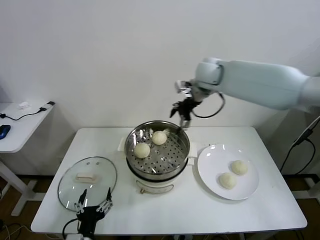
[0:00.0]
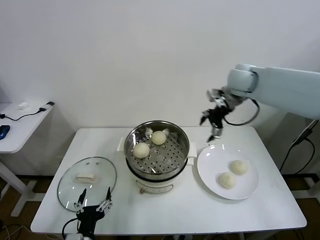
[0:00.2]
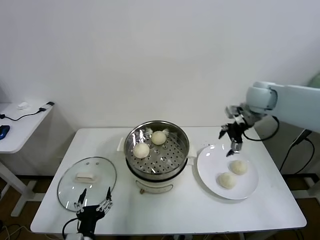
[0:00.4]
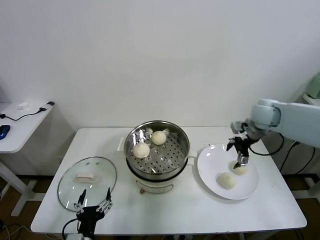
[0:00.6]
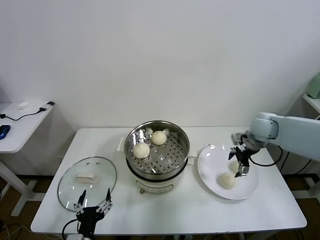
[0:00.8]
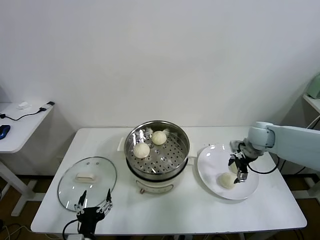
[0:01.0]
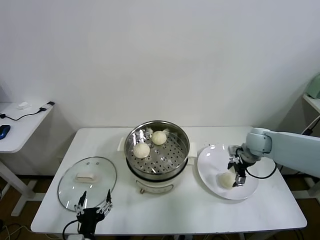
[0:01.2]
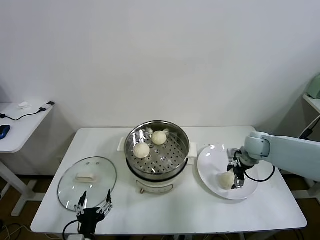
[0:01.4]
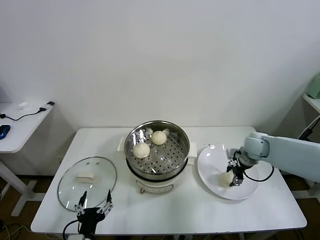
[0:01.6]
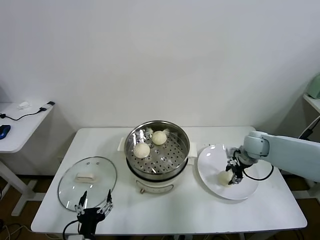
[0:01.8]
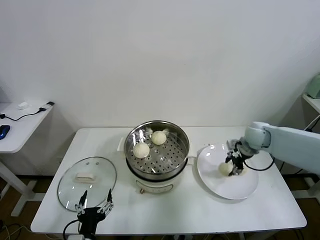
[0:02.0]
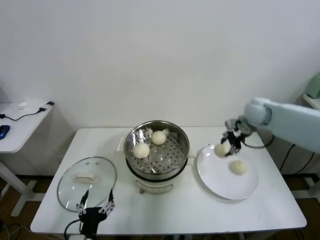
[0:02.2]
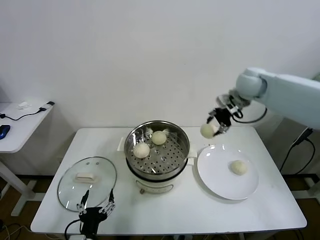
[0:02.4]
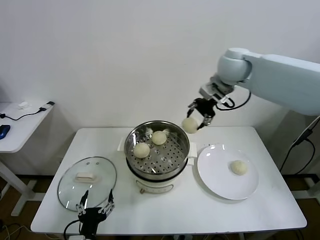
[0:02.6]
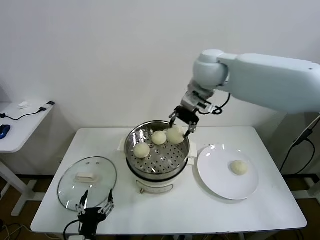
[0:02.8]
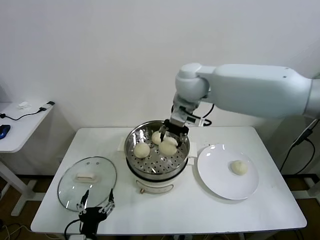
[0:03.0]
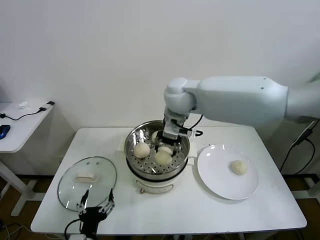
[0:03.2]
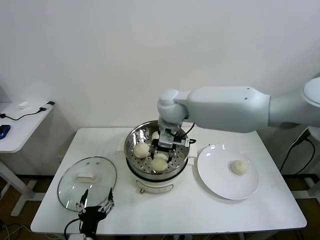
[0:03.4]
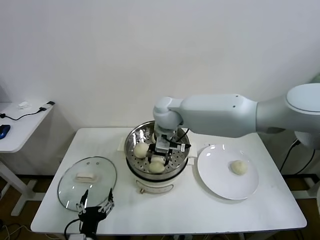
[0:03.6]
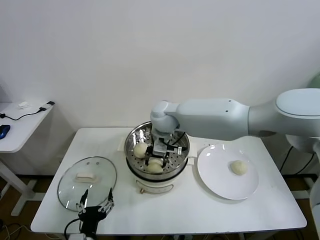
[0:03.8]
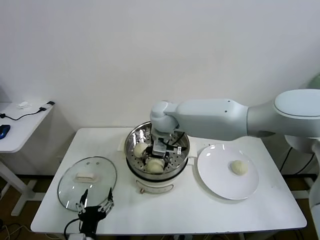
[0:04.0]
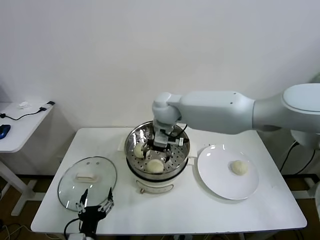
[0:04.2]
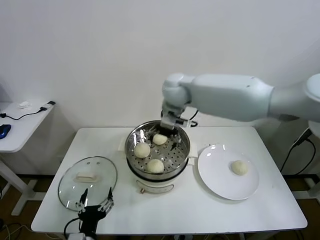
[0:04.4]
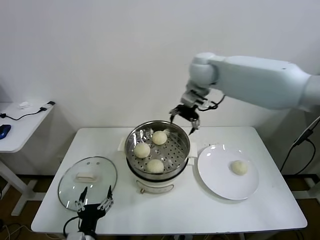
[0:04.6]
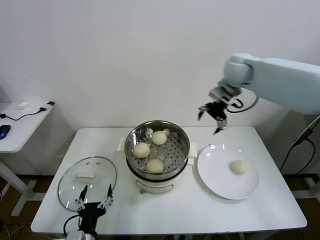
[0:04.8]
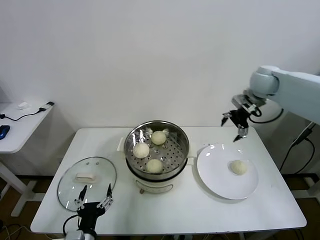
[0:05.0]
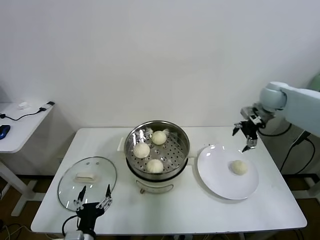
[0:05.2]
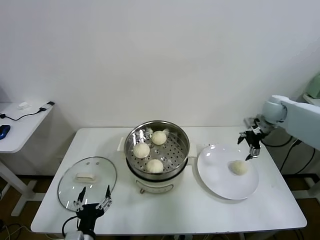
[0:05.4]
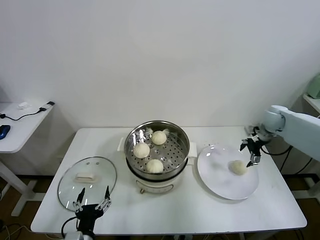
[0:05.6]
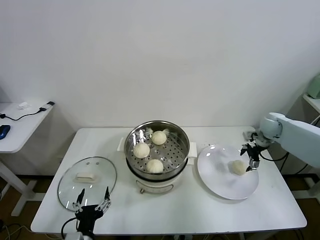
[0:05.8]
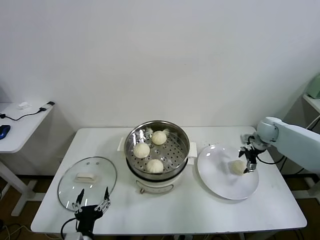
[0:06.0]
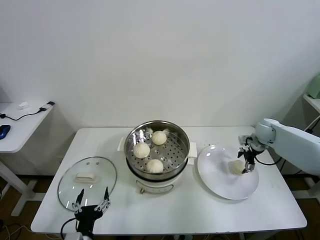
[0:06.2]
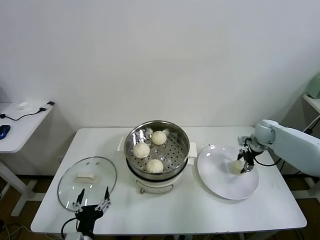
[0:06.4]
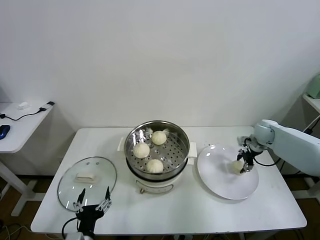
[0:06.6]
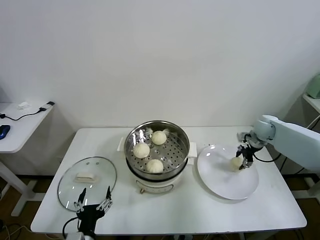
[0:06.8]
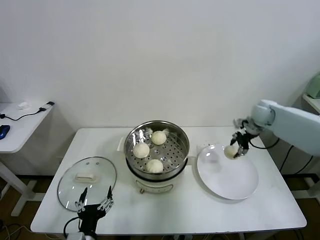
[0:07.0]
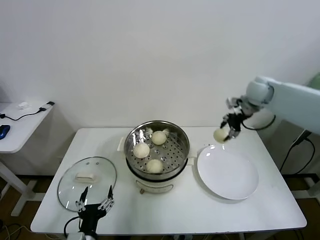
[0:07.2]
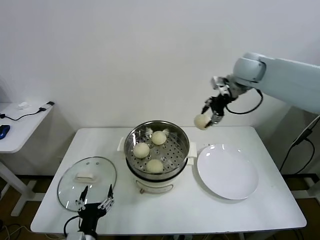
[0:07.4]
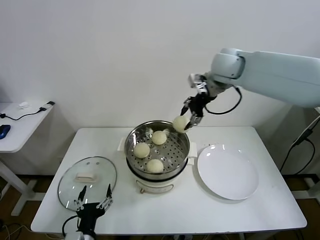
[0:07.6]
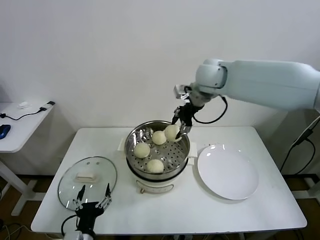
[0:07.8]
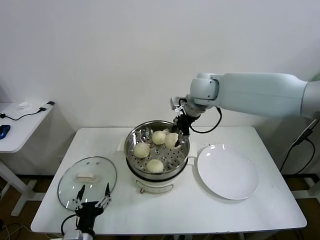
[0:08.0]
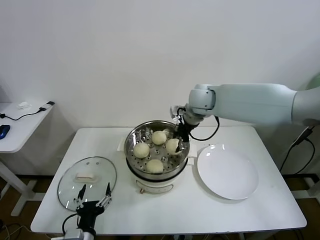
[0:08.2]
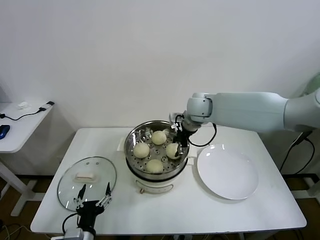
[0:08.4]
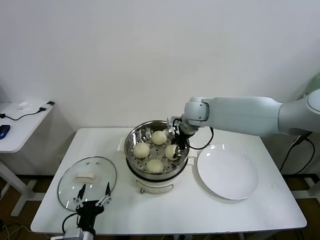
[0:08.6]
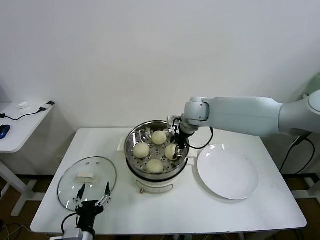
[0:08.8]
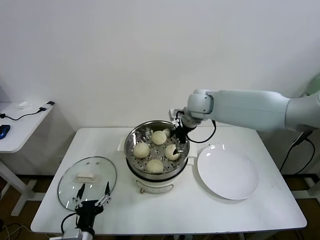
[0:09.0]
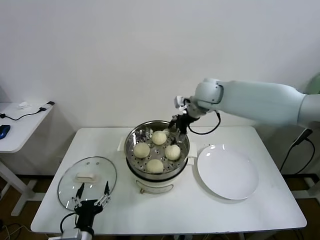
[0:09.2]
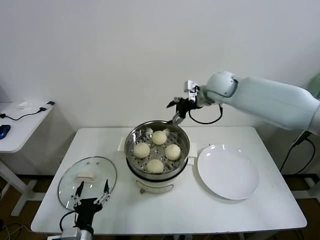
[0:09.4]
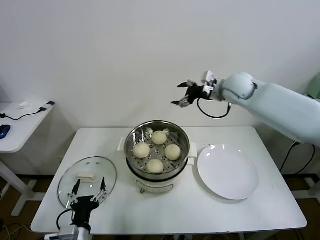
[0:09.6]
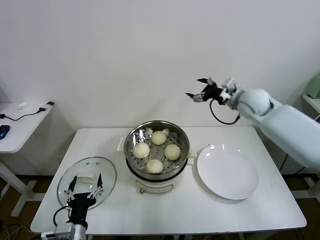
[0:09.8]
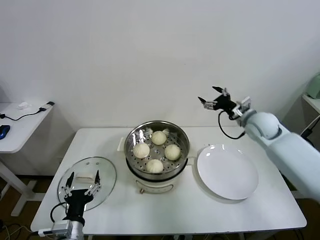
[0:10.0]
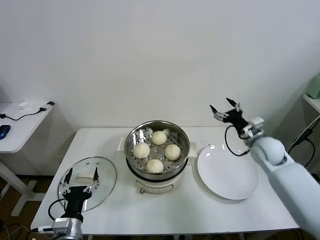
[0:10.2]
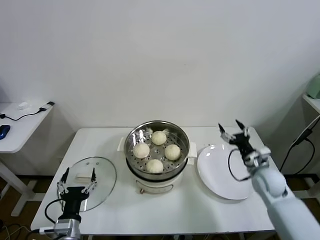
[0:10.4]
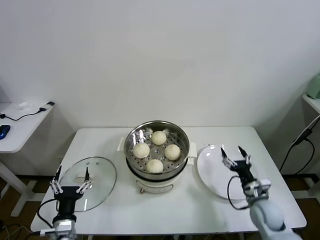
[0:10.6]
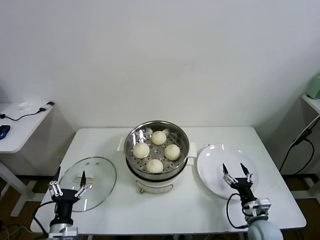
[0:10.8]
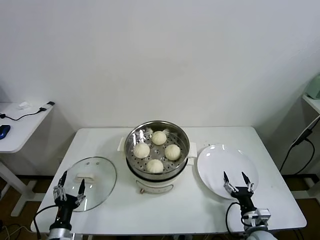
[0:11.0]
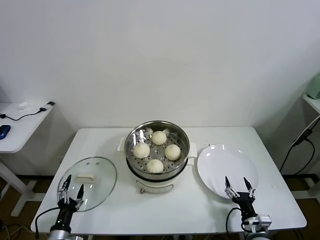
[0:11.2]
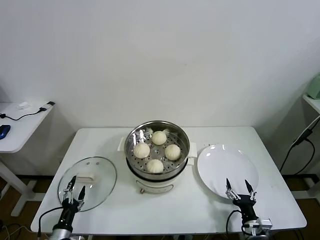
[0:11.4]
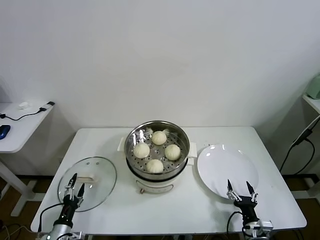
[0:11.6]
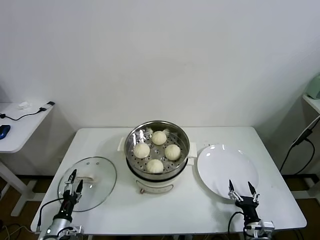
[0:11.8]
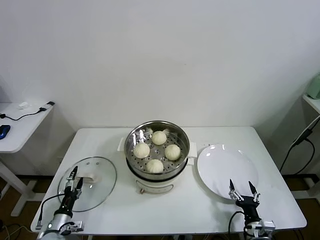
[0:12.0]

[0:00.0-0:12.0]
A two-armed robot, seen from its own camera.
Task of the whole recording: take steamed baozi put them in steamer.
Step, 0:00.0 to 0:01.6: Grasp the baozi in the plate with right gripper.
Step, 0:01.8 to 0:04.0: Place the baozi on the steamer with right gripper.
Step, 0:04.2 to 0:06.4: Grasp the baozi in the plate with right gripper.
Step, 0:06.6 to 0:08.8: Place the baozi on the steamer with right gripper.
0:00.0 to 0:01.6: The right gripper goes some 30 cm downward and to the right, and closes.
0:01.6 to 0:03.0: The right gripper shifts roughly 35 cm to the left and upward.
0:03.0 to 0:04.4: The right gripper moves some 10 cm downward and comes back, and opens.
0:04.4 to 0:06.0: The right gripper heads to the right and downward, covering some 40 cm.
0:06.0 to 0:07.6: The right gripper heads upward and to the left, covering some 35 cm, and closes.
0:07.6 to 0:09.0: The right gripper shifts about 15 cm downward, and opens up.
0:09.0 to 0:10.4: The right gripper travels to the right, downward and backward by about 35 cm. Meanwhile the left gripper shifts by about 5 cm.
0:10.4 to 0:12.0: The left gripper is displaced downward and to the left by approximately 20 cm. The right gripper shifts about 25 cm backward and downward.

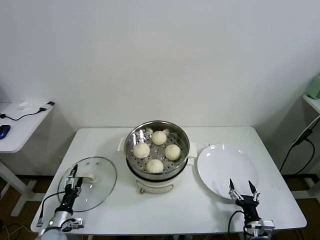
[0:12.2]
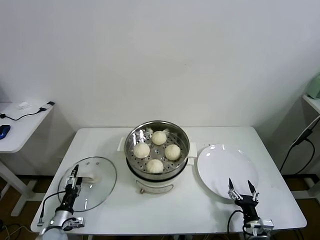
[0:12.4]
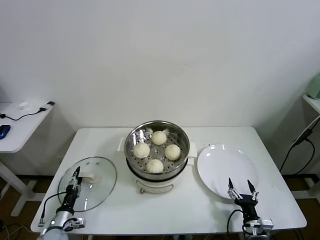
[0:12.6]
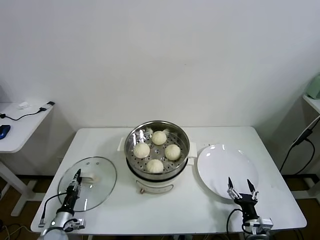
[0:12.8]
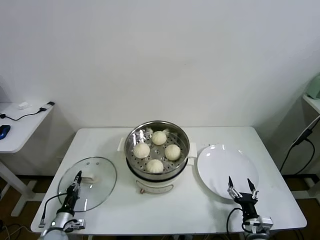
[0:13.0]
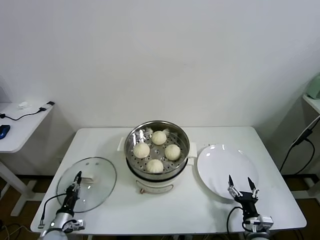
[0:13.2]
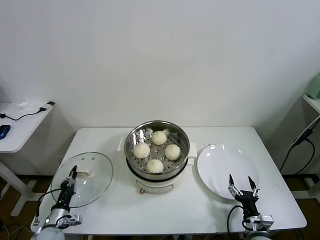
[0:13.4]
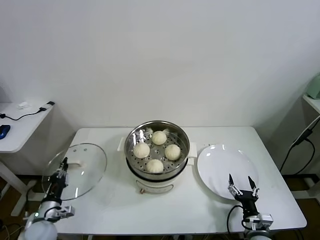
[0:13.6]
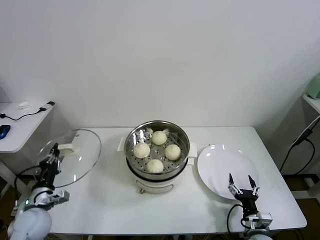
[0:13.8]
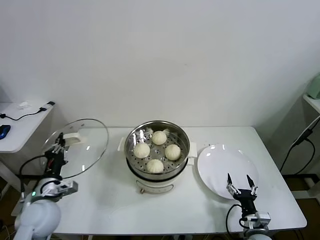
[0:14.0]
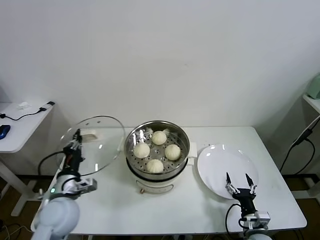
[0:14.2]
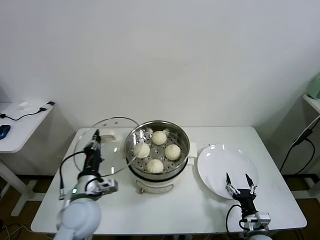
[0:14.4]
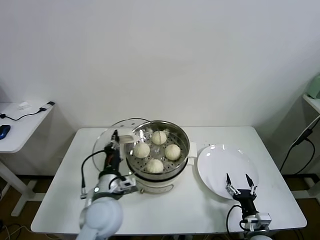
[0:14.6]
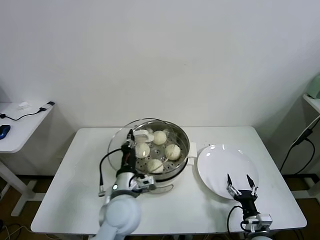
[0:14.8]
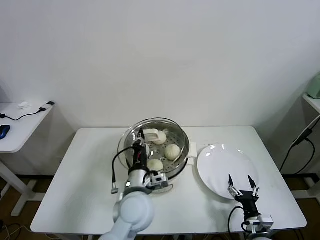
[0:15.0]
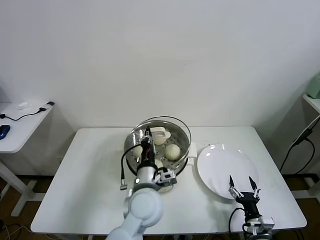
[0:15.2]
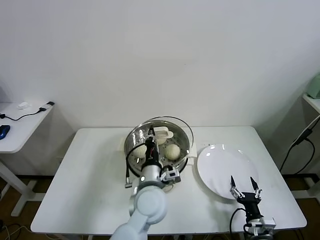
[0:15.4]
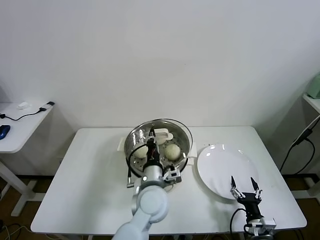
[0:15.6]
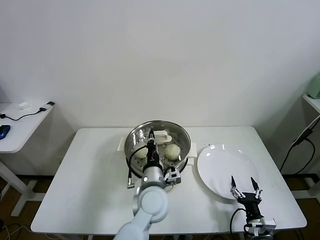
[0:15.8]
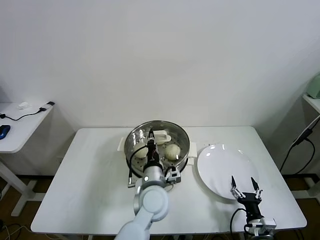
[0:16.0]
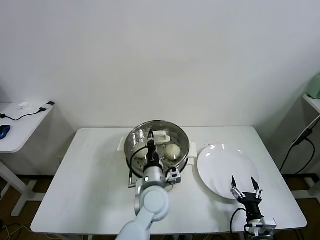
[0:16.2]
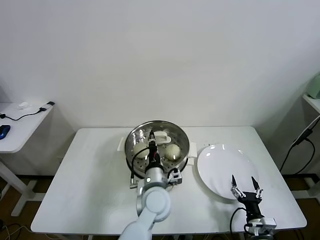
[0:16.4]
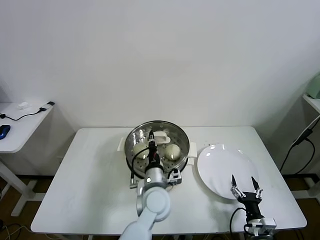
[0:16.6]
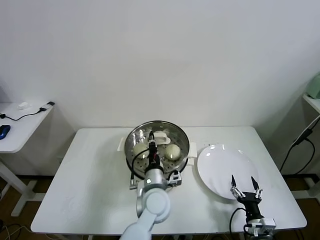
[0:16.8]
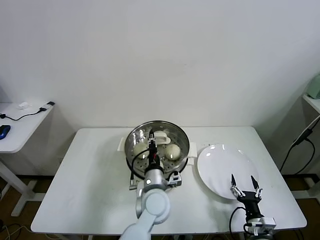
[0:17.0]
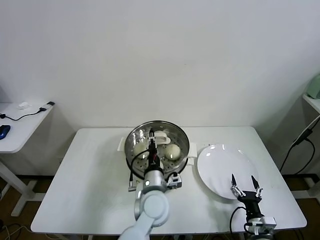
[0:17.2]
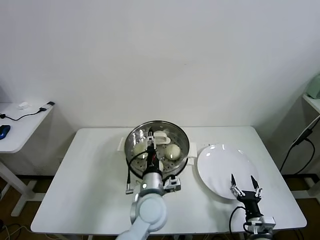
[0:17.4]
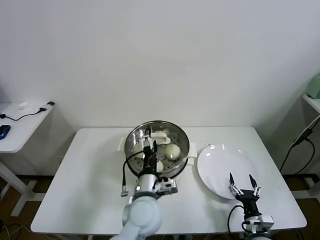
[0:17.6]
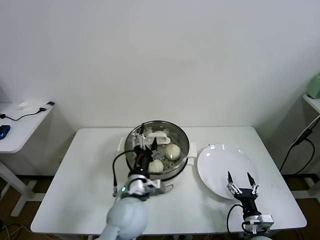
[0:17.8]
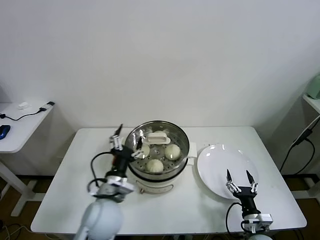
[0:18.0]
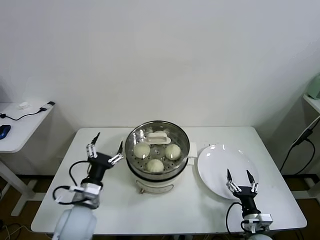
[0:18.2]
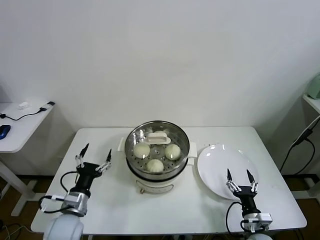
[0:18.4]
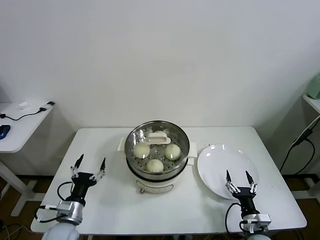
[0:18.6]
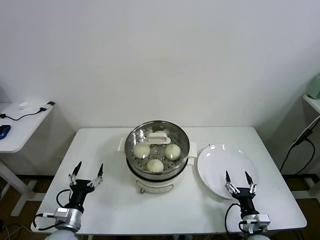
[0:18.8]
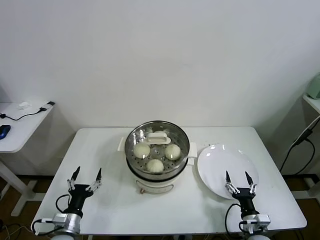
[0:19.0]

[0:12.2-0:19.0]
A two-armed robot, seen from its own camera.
Task of the whole recording: take steamed baozi put them in steamer.
Step, 0:13.4 to 0:17.6: Place the pot lid on the steamer with left gripper.
0:12.2 to 0:13.6: The left gripper heads upward, covering about 5 cm, and closes up.
0:13.6 to 0:15.0: The left gripper goes about 35 cm to the right and upward.
0:15.0 to 0:16.2: The left gripper moves to the right, roughly 5 cm.
0:16.2 to 0:17.6: The left gripper opens its fingers.
0:17.6 to 0:19.0: The left gripper moves to the left and downward, some 30 cm.
